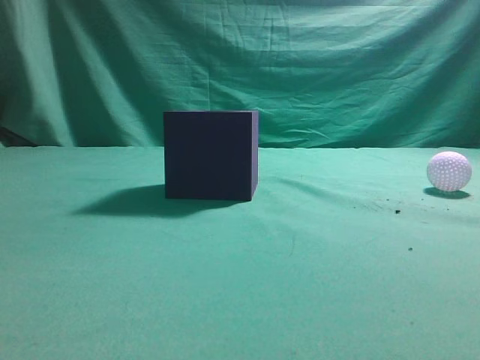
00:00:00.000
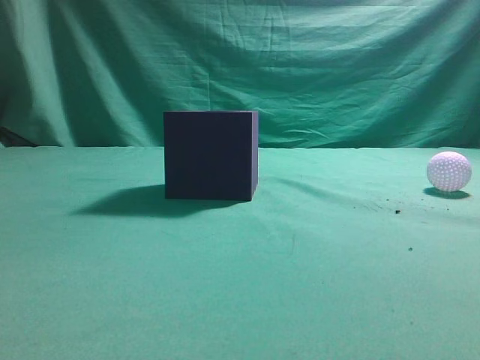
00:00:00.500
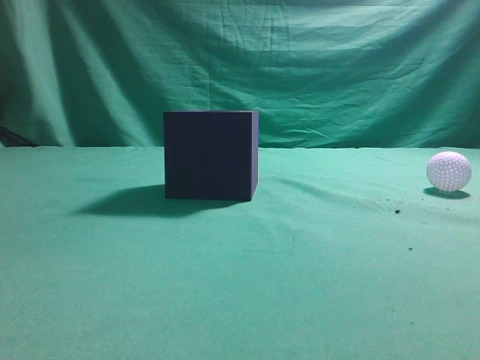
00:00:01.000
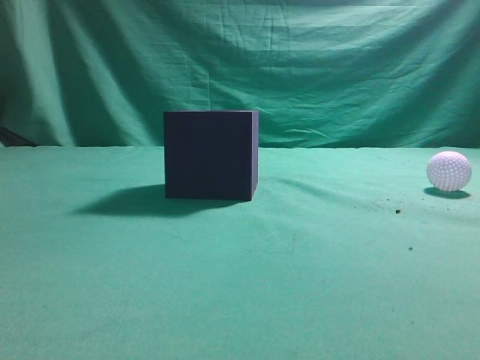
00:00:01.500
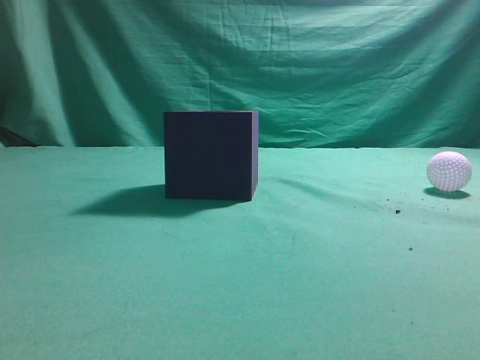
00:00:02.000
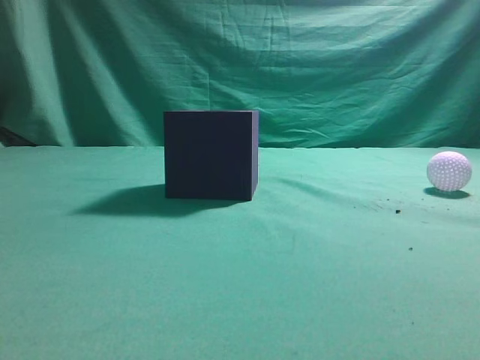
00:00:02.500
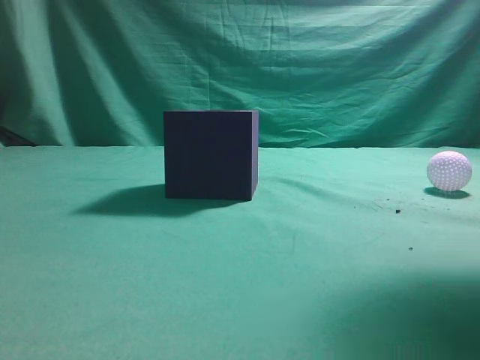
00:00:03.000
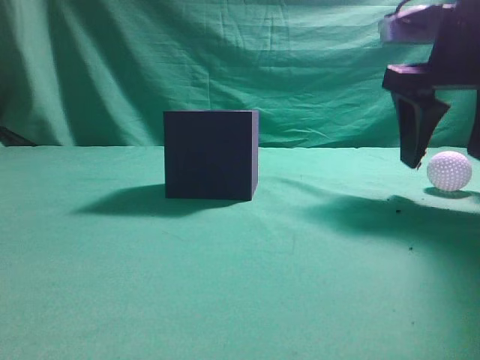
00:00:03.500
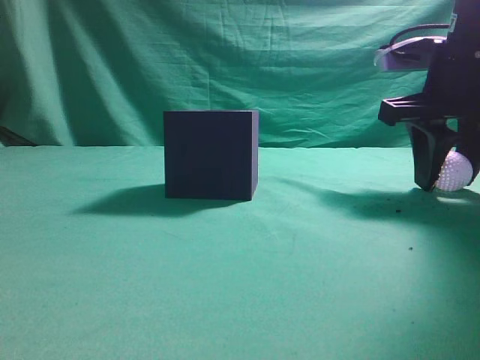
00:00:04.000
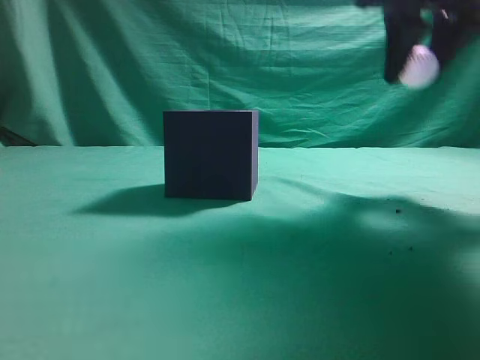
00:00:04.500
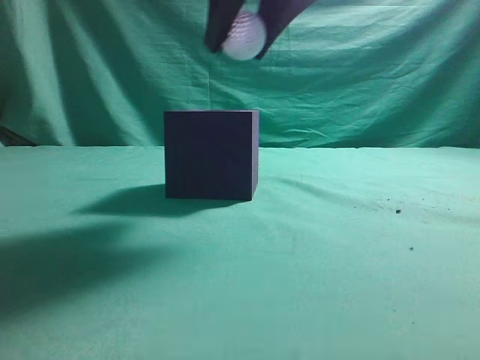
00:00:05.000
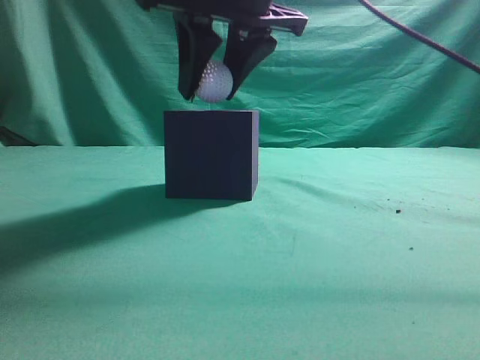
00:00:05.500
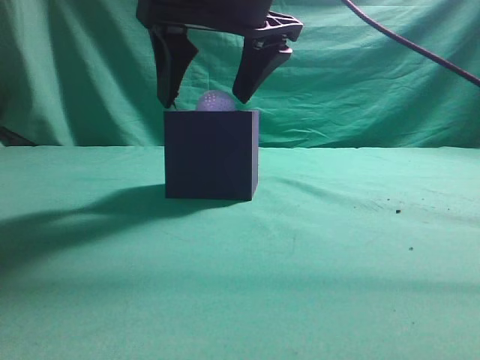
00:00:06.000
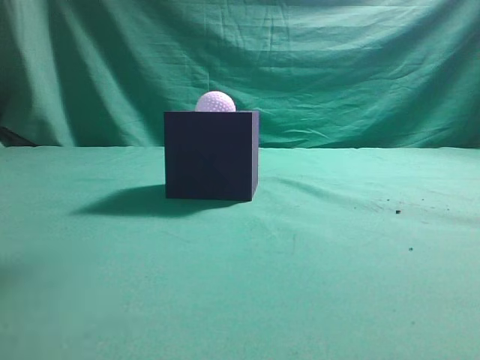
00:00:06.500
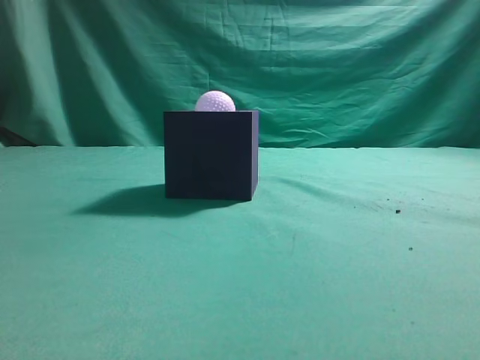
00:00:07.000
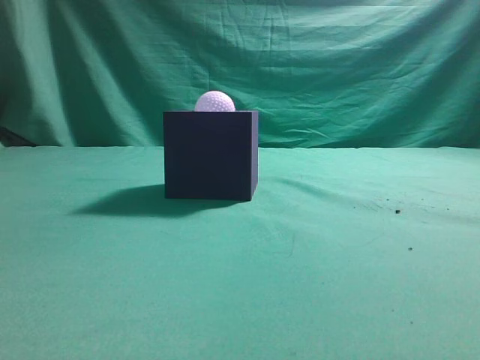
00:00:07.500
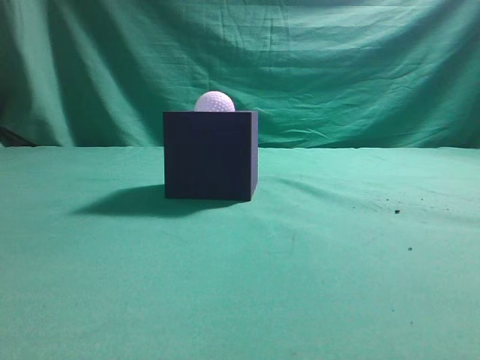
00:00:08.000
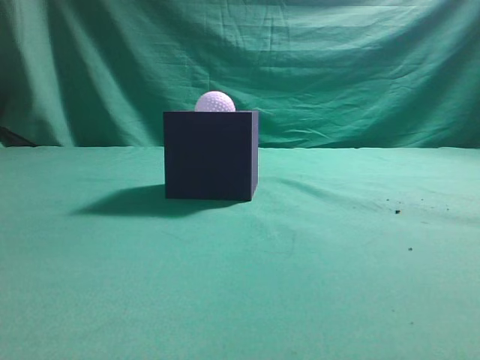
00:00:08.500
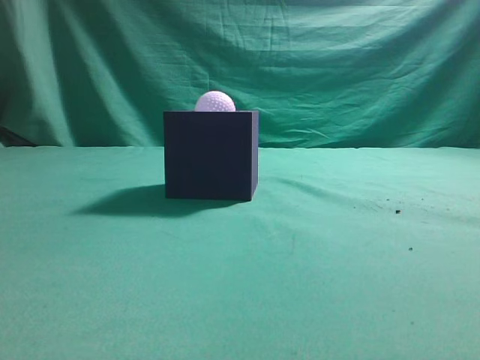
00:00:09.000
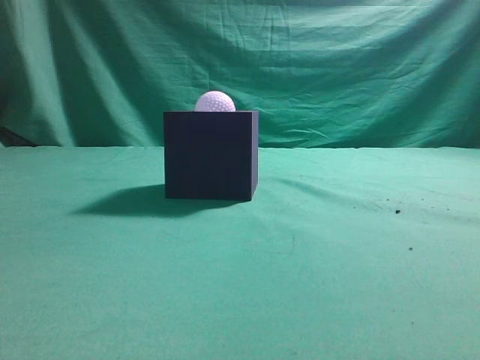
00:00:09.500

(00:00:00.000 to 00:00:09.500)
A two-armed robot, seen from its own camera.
Task of the whole recording: Pick up the ball and place it in the circular groove above the cube.
Step, 00:00:00.000 - 00:00:04.000: Grasp the sphere on the table.
Step, 00:00:04.500 - 00:00:06.000: Place the sphere into the sphere-shaped recess.
00:00:02.000 - 00:00:04.000: The right gripper travels forward by roughly 25 cm, and opens up.
00:00:04.000 - 00:00:05.500: The right gripper goes approximately 20 cm to the left and upward.
00:00:05.500 - 00:00:07.500: The right gripper moves backward, to the right and upward, about 30 cm, and closes.
